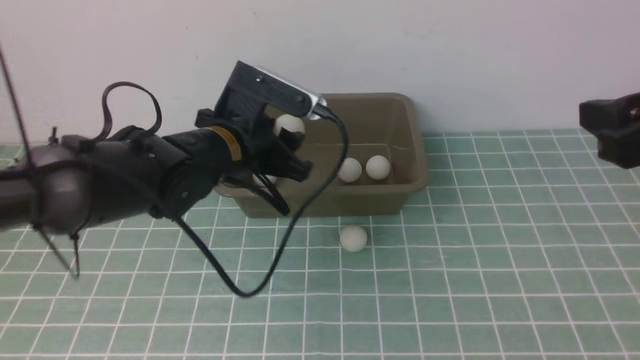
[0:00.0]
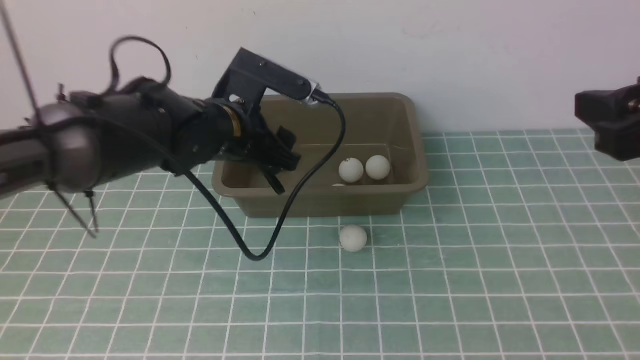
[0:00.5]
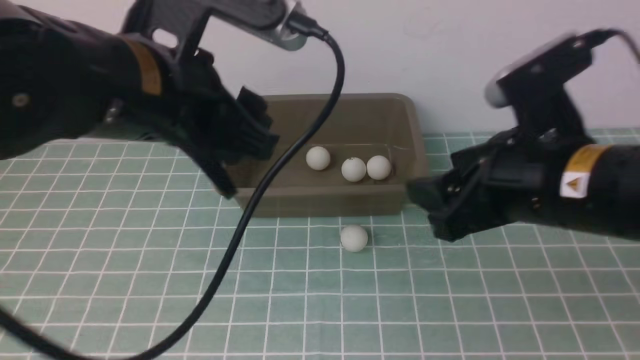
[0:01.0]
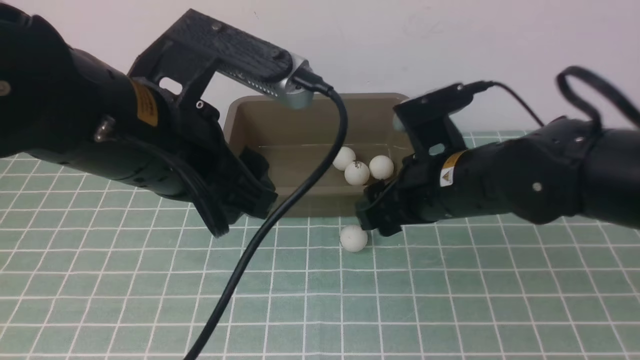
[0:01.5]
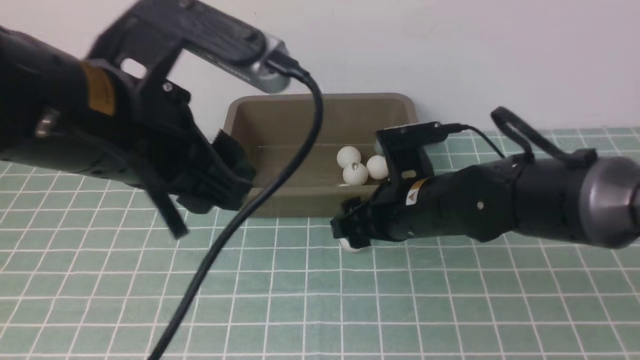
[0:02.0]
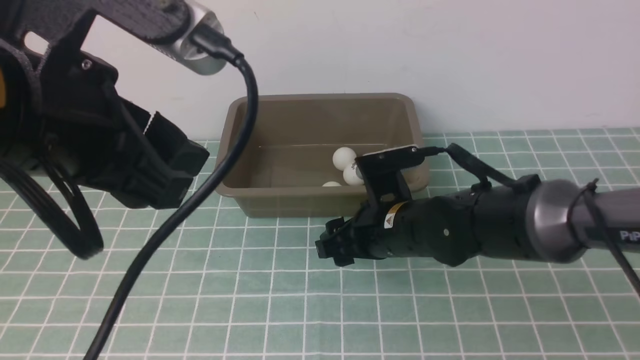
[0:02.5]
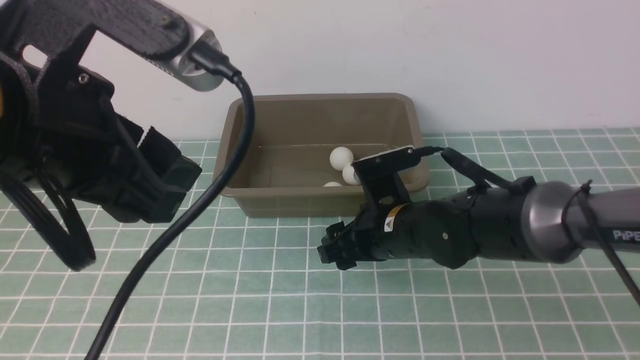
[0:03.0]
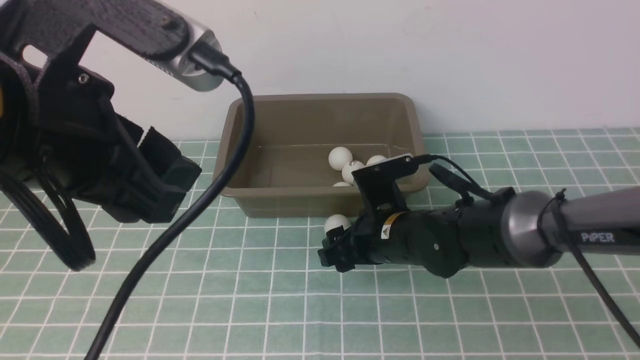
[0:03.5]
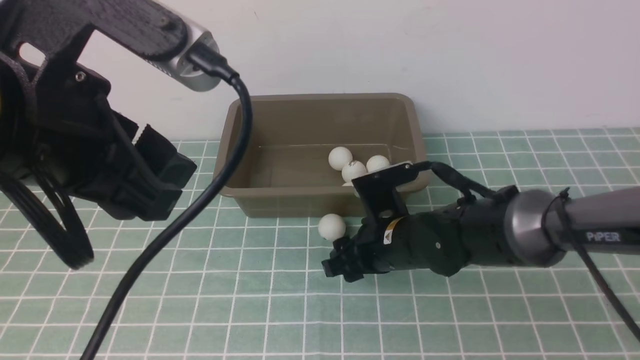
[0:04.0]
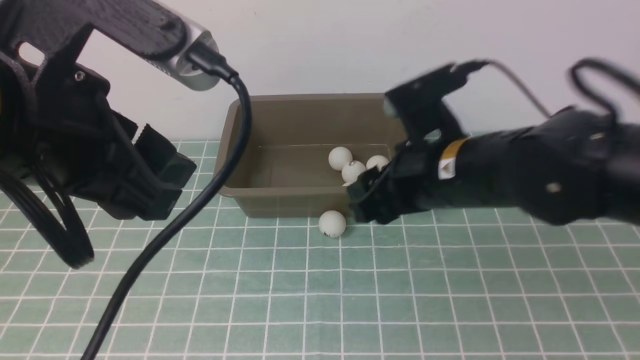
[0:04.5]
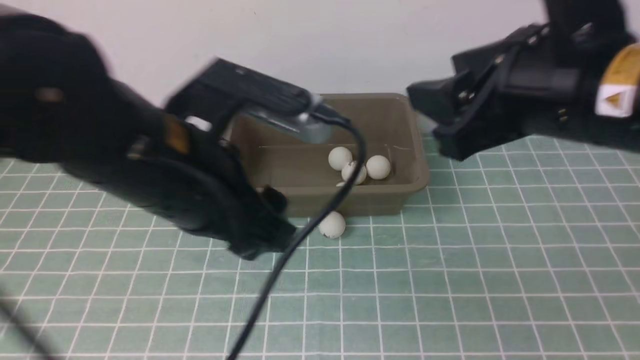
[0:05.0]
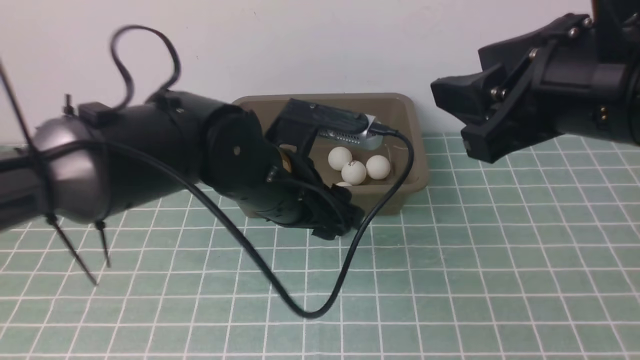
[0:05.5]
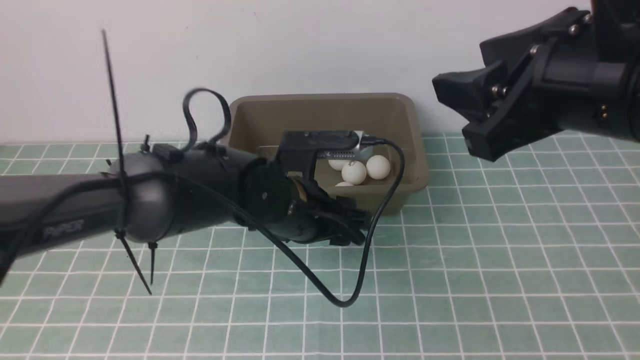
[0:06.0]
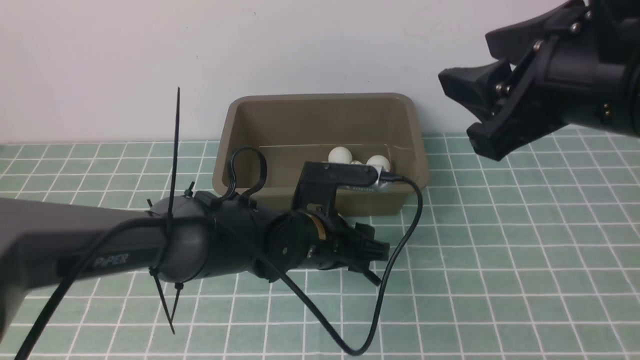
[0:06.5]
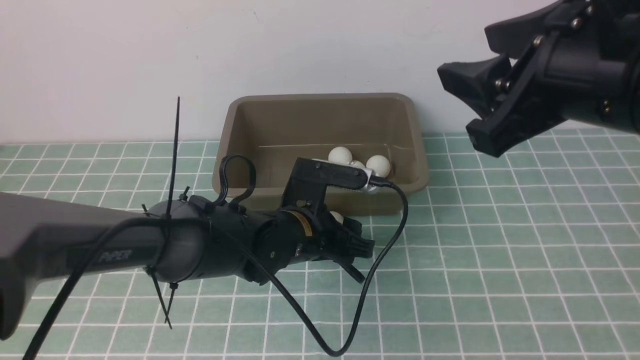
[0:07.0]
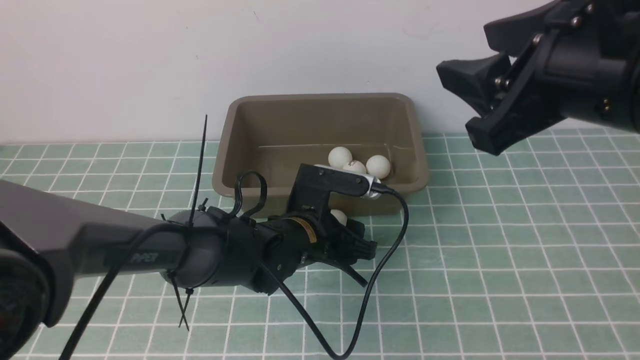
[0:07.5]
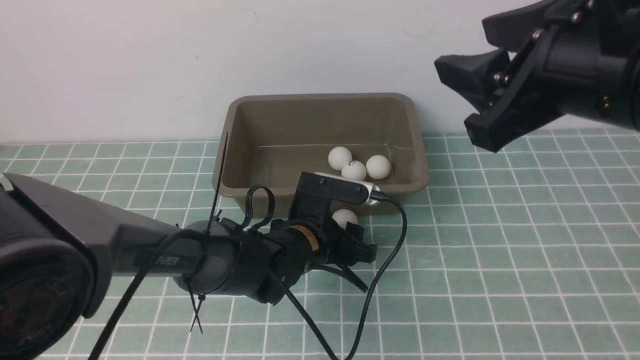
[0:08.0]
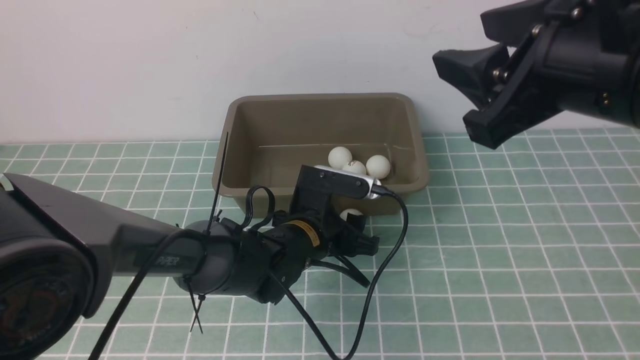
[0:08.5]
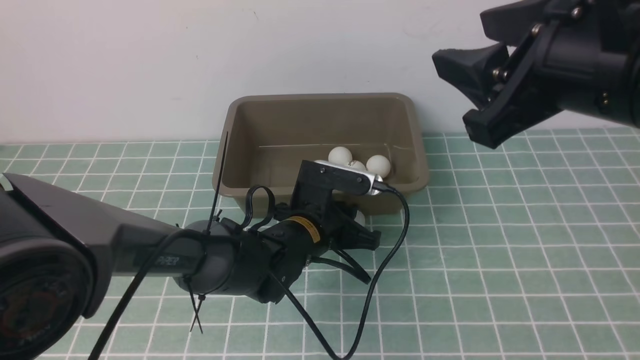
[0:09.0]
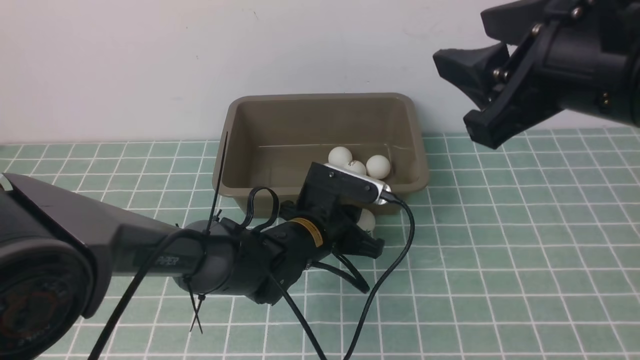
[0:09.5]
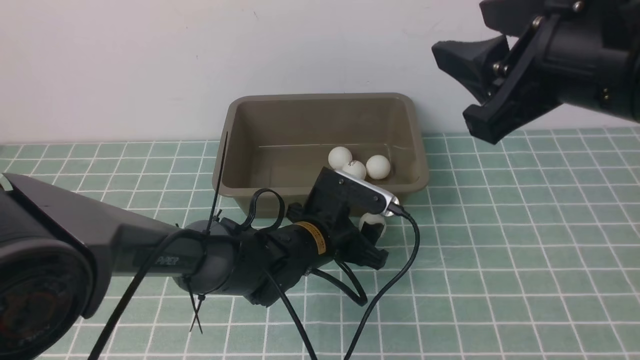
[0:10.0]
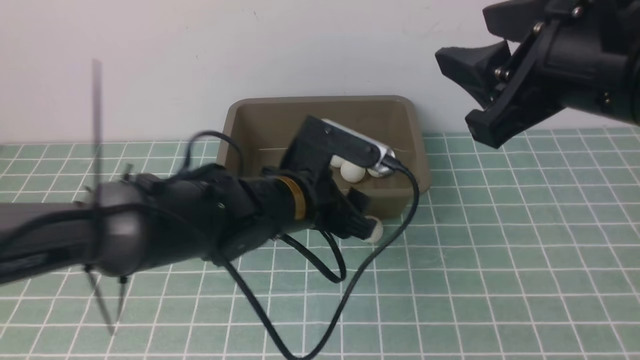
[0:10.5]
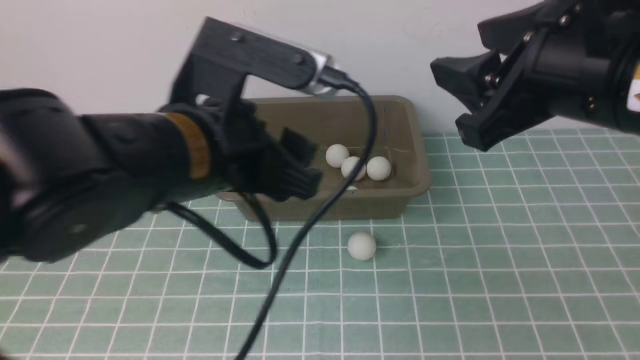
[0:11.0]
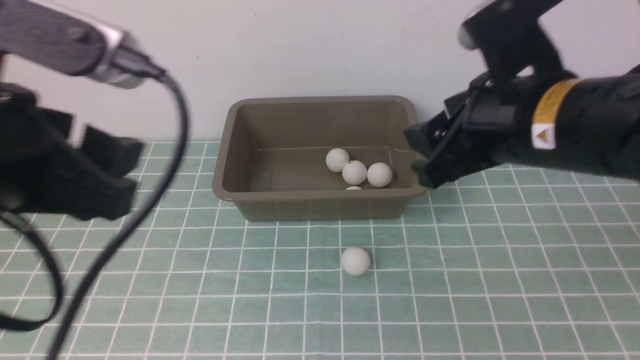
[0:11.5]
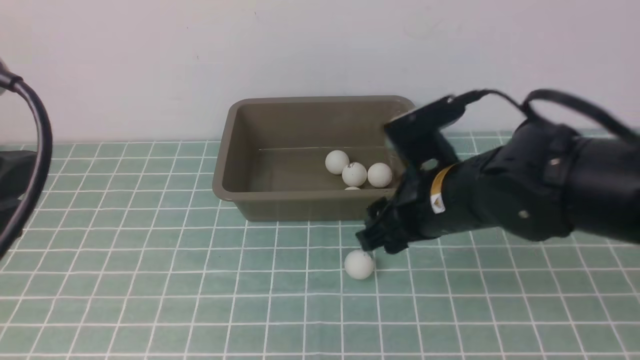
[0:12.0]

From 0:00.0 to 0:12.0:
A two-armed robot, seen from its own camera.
From 0:00.0 to 0:02.0: The right gripper goes approximately 25 cm to the left, downward and forward; the left gripper is displaced backward and upward by about 25 cm.
From 0:04.0 to 0:06.0: The left gripper is displaced downward, forward and to the right by about 30 cm. The right gripper moves upward, backward and to the right, approximately 30 cm.
From 0:06.0 to 0:08.0: The left gripper travels downward by roughly 5 cm.
From 0:08.0 to 0:10.0: The left gripper closes, then opens again.
From 0:10.0 to 0:12.0: The right gripper shifts approximately 20 cm downward; the left gripper moves upward, backward and to the left, about 40 cm.

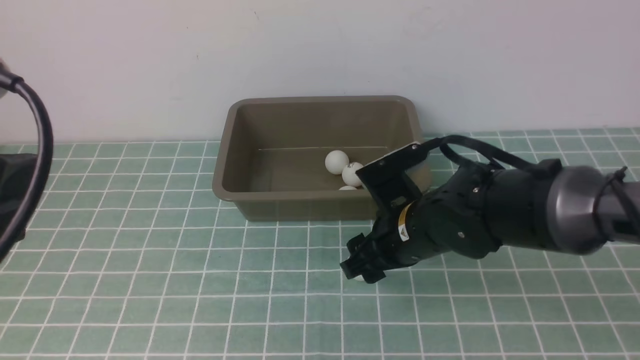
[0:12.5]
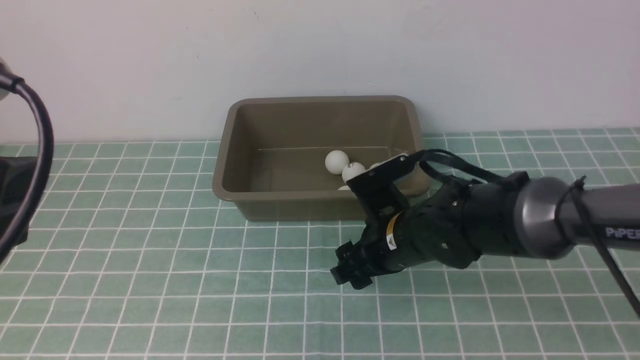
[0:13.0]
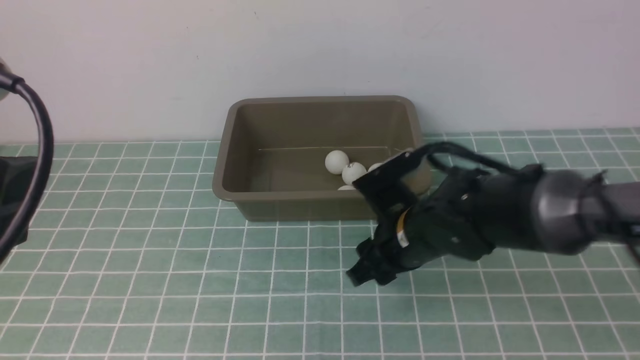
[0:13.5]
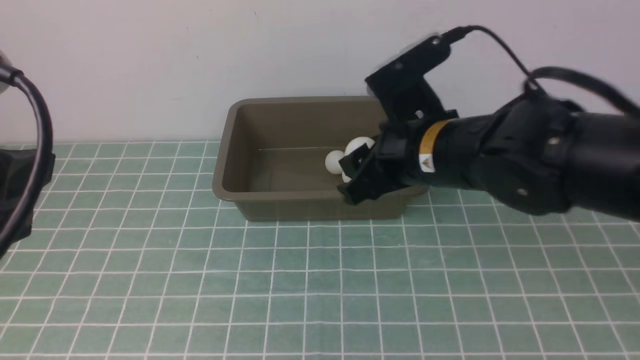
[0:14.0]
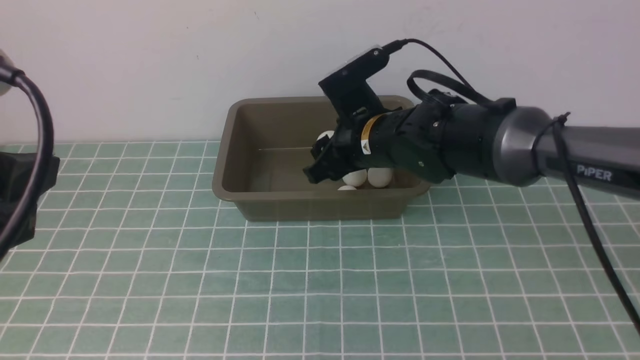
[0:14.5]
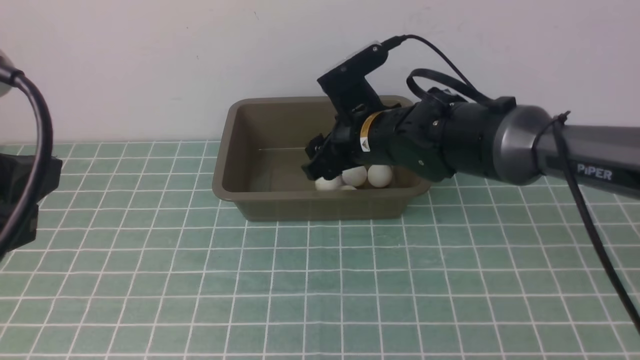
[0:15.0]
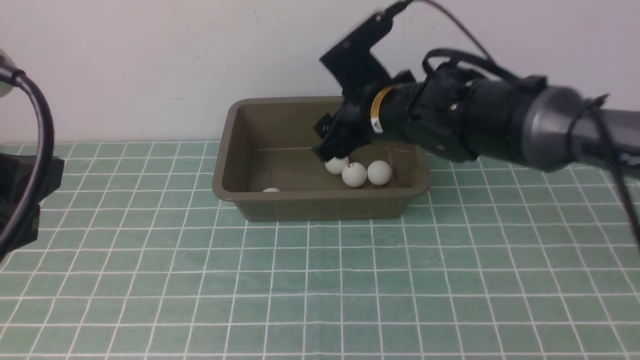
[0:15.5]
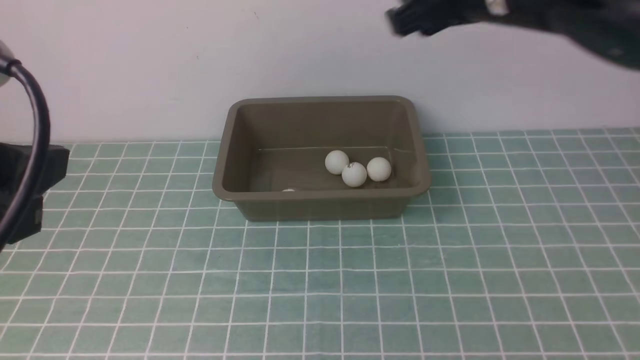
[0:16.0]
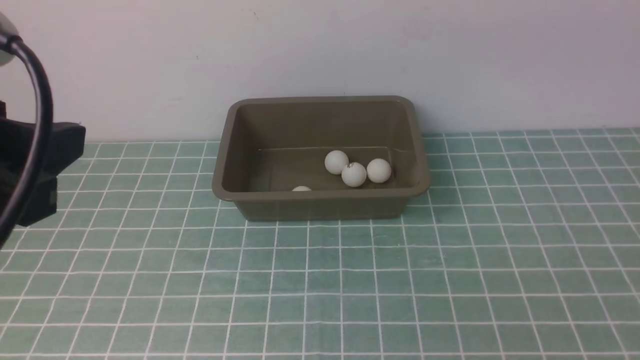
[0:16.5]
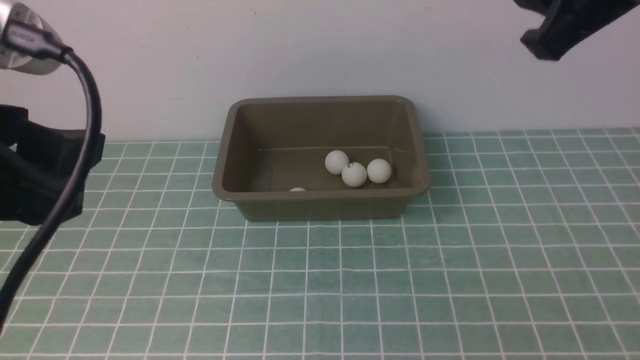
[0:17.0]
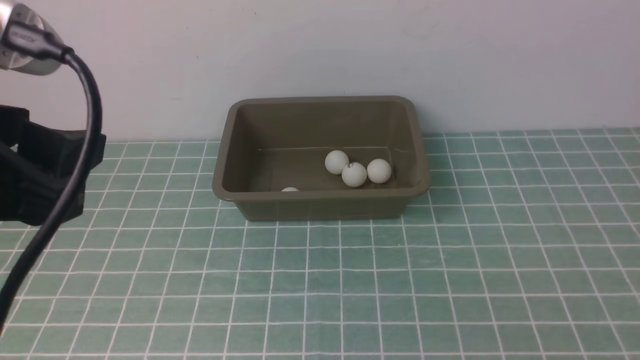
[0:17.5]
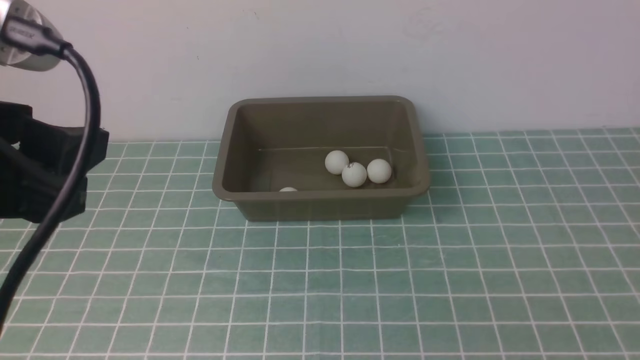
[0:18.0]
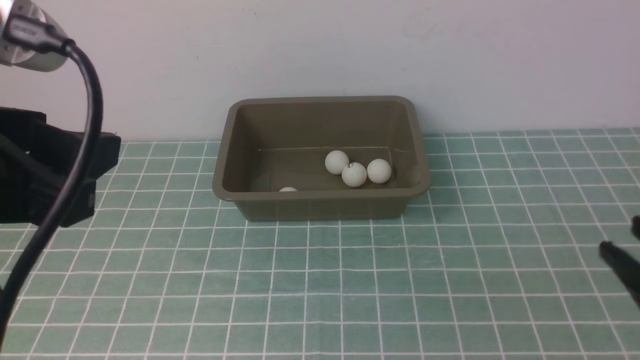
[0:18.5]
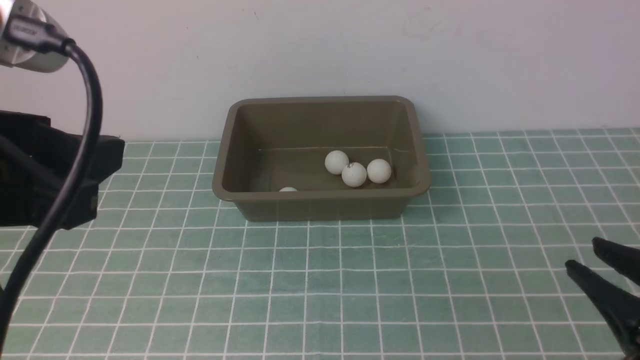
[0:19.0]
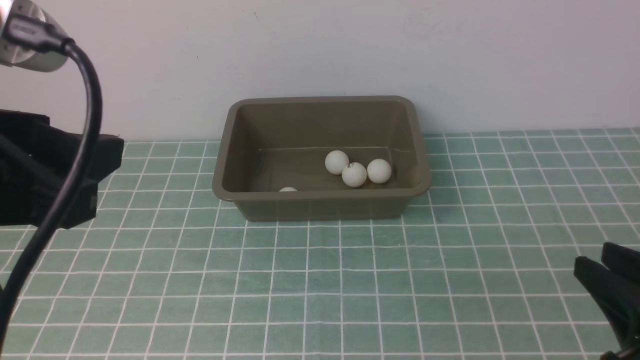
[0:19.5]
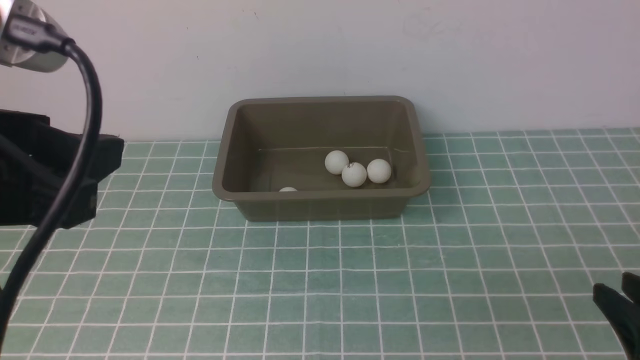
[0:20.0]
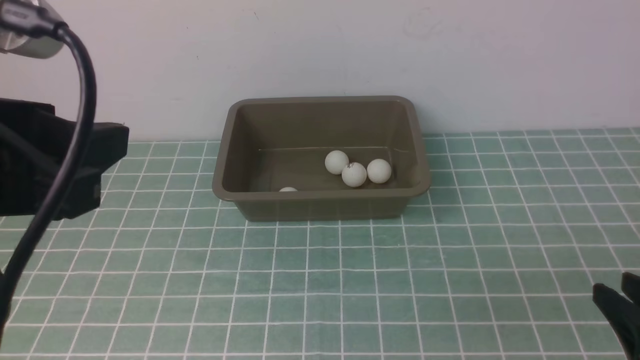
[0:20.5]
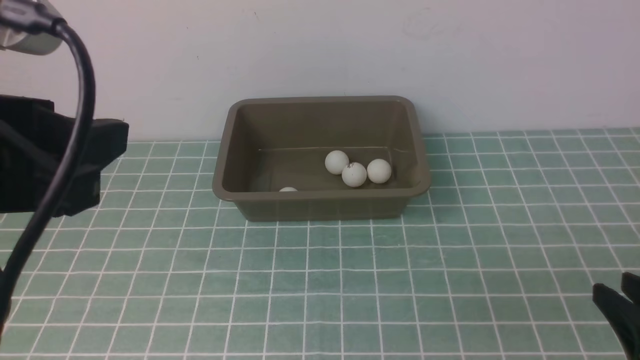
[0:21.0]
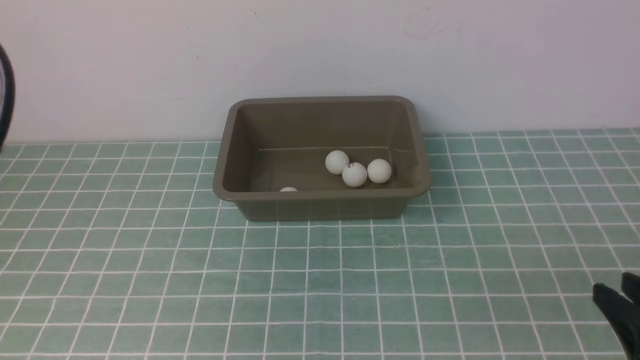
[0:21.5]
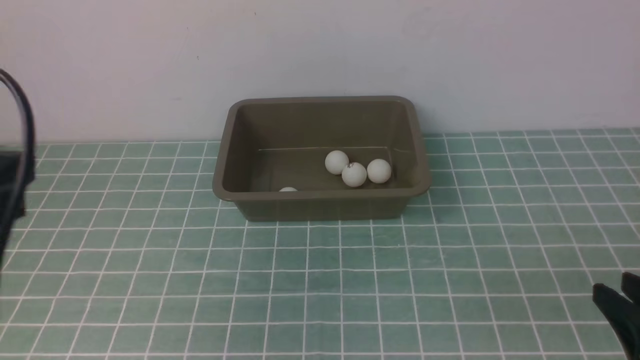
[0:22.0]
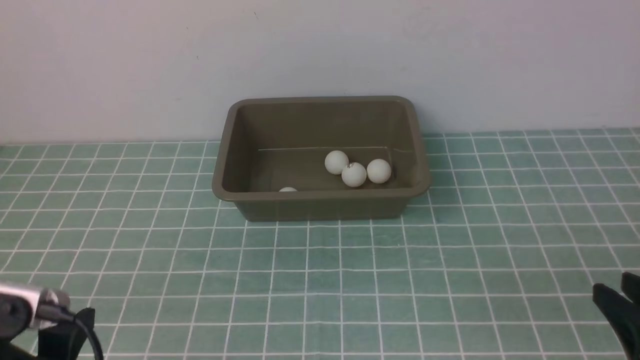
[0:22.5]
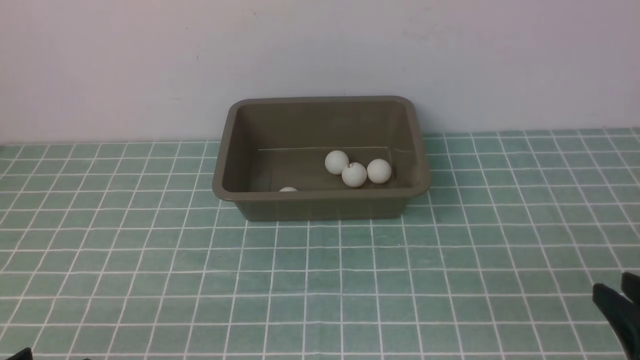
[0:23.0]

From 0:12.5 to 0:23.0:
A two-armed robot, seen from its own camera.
Step, from 0:14.0 to 0:15.0: use the right arm to put the table tennis ball into the box.
From 0:12.5 to 0:14.5: The right gripper travels forward and upward by roughly 10 cm, and closes.
From 0:14.5 to 0:16.5: The right gripper heads upward, to the right and backward, covering about 30 cm, and opens, then closes again.
From 0:16.5 to 0:19.0: The right gripper is displaced downward and backward by some 25 cm, and closes its fingers.
From 0:19.0 to 0:21.0: The grippers stay close to where they were, moving slightly.
From 0:21.0 to 0:23.0: The left gripper moves downward, approximately 25 cm.
